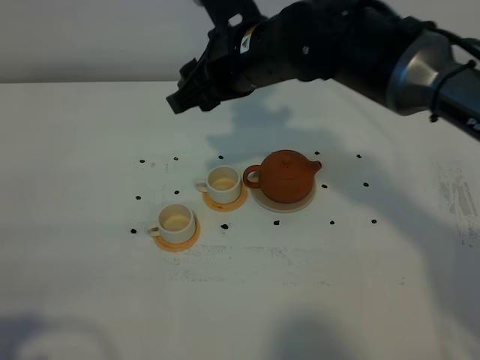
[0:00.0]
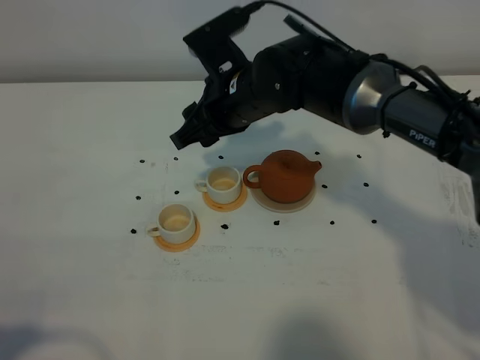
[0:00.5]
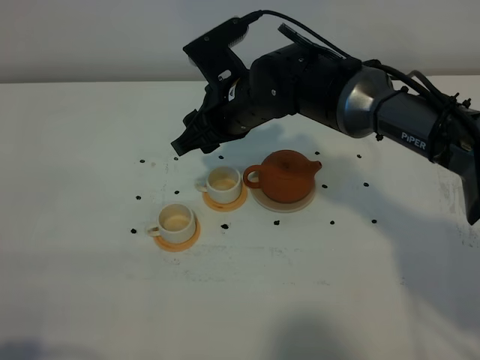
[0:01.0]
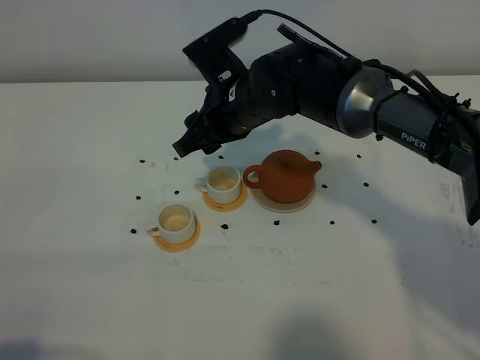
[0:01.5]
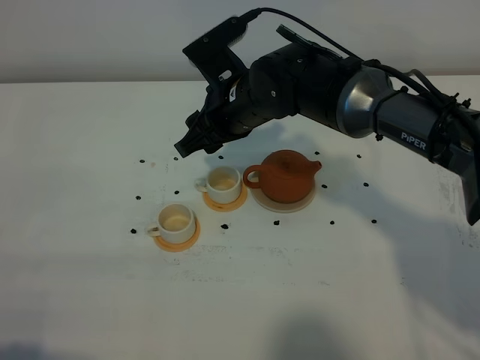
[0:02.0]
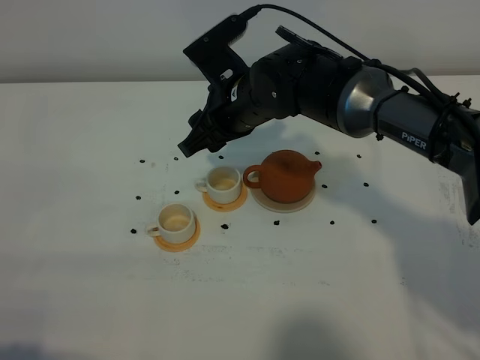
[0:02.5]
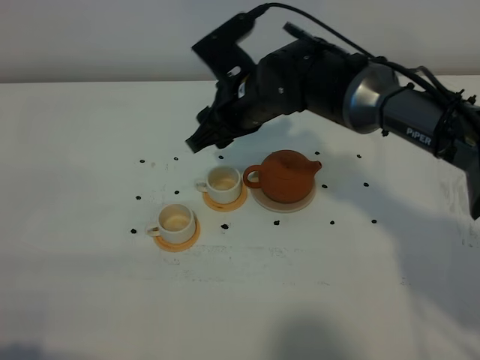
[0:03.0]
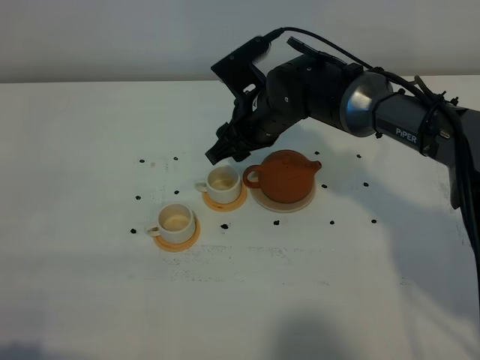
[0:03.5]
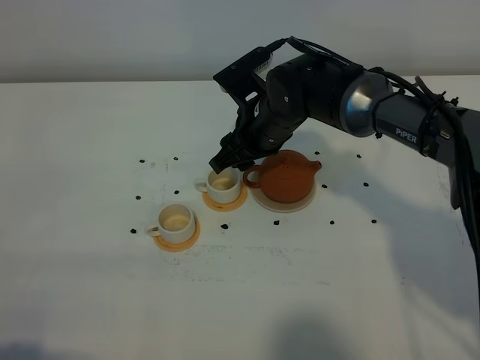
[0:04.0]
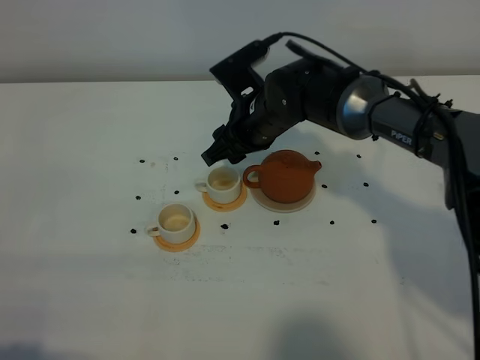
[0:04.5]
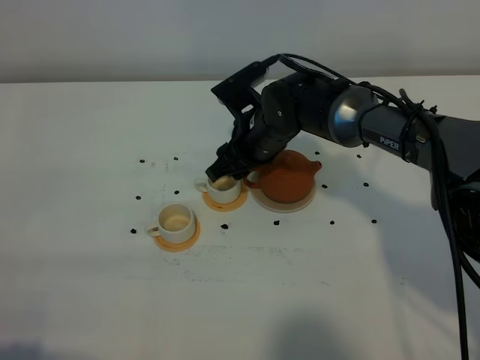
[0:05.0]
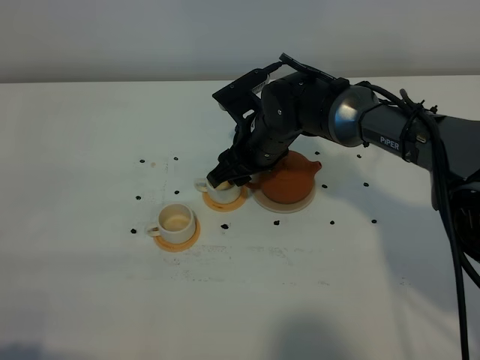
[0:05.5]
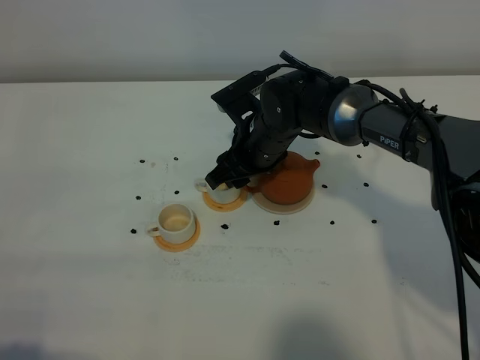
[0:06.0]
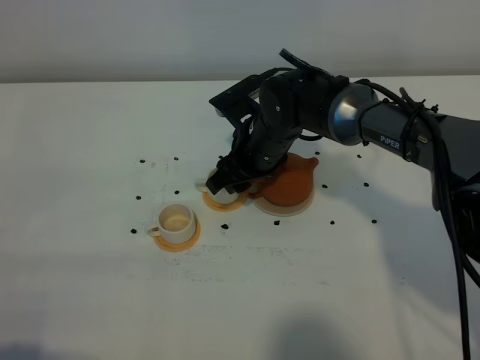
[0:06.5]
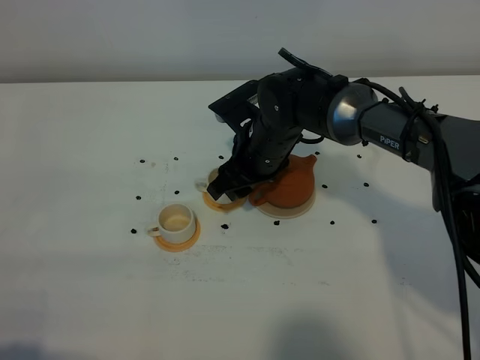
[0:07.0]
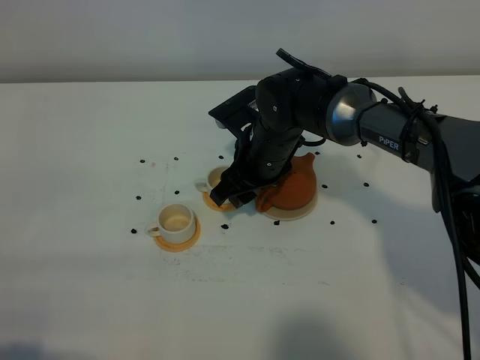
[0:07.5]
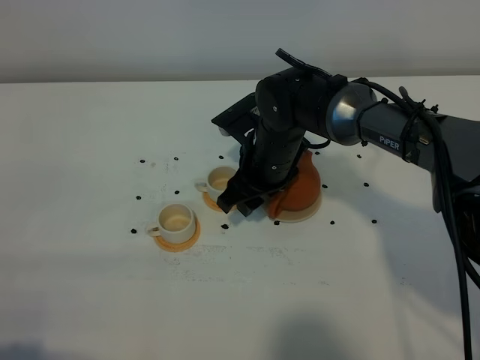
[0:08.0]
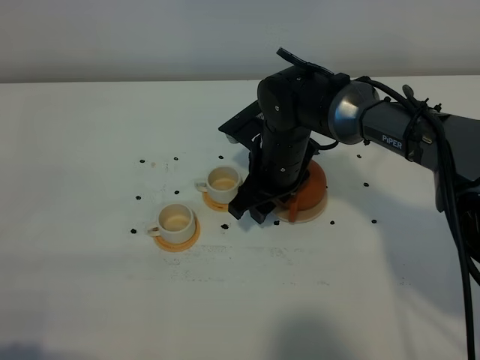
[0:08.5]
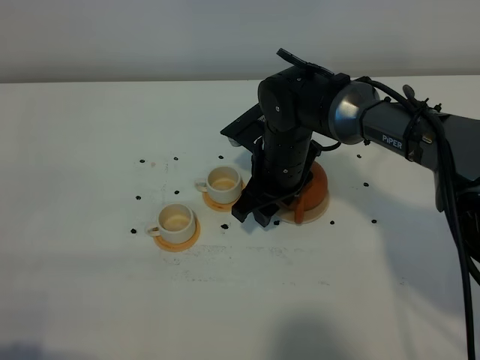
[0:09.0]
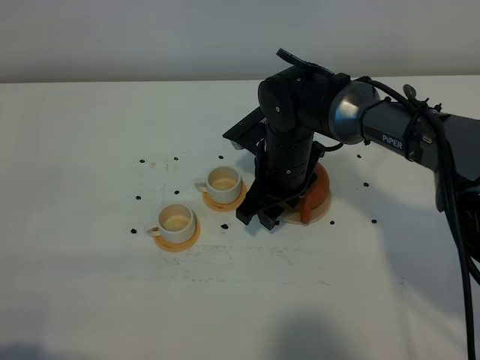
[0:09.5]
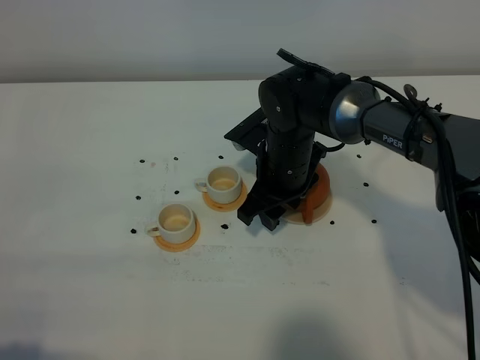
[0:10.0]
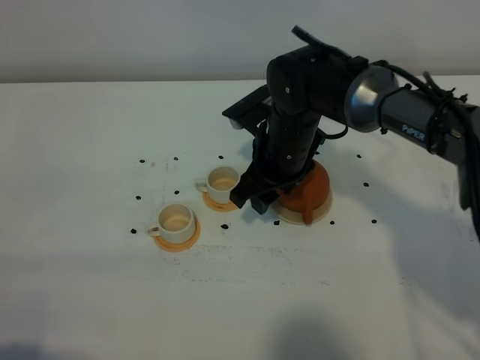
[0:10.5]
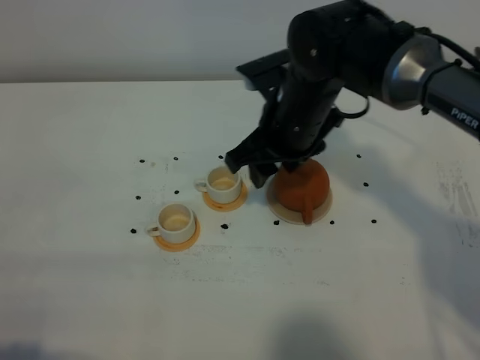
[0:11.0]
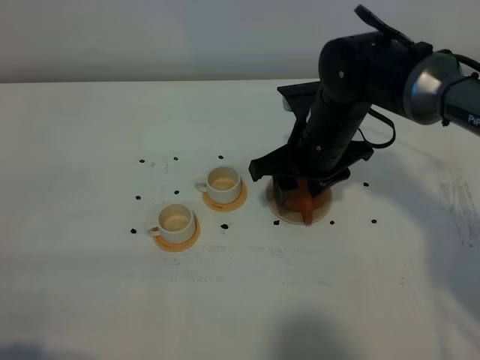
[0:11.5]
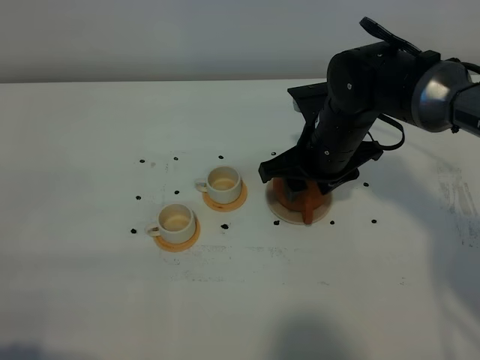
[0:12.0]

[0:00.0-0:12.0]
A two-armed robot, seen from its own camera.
Task of the whole recording: grasp the brown teapot and pour the tea into the two white teacups one by one, put the brown teapot back in its original place.
0.0 to 2.0 s: The right gripper travels downward by some 5 cm.
2.0 to 4.0 s: The right gripper shifts by roughly 5 cm.
4.0 to 8.0 s: The grippers stay close to where they were, moving slightly.
8.0 to 10.0 s: The grippers move only a little.
10.0 to 12.0 s: The right gripper goes approximately 5 cm to the right.

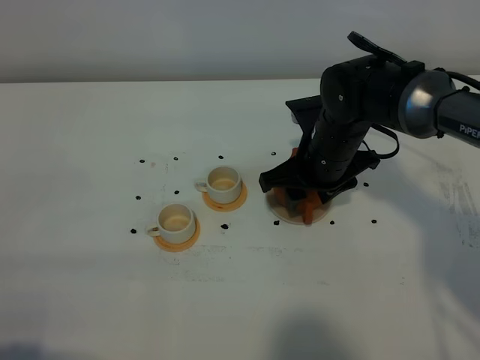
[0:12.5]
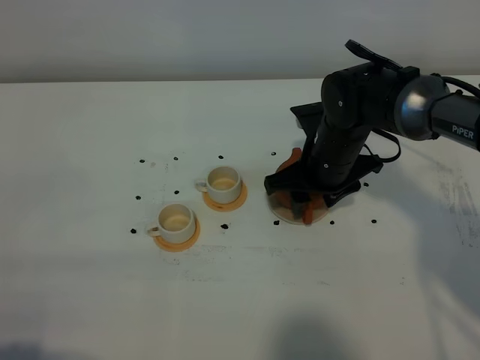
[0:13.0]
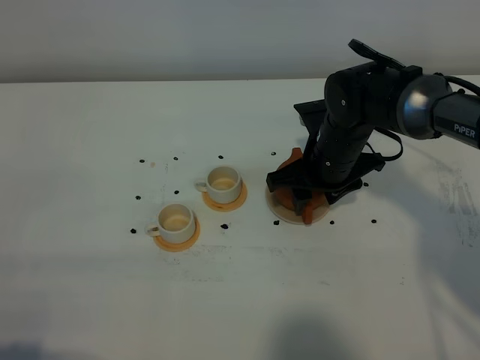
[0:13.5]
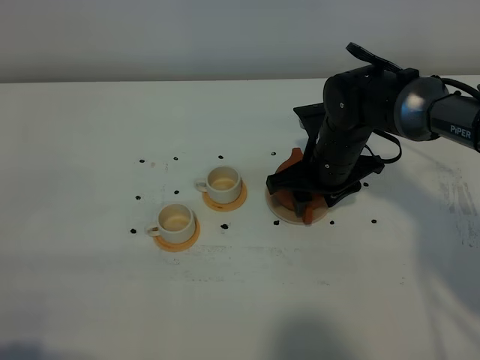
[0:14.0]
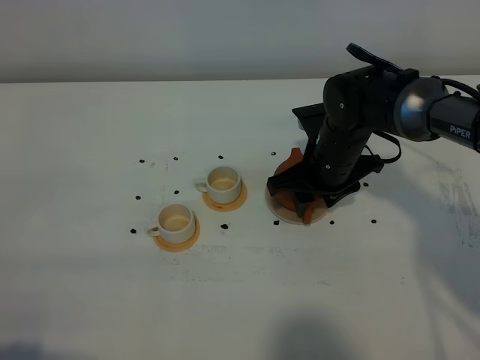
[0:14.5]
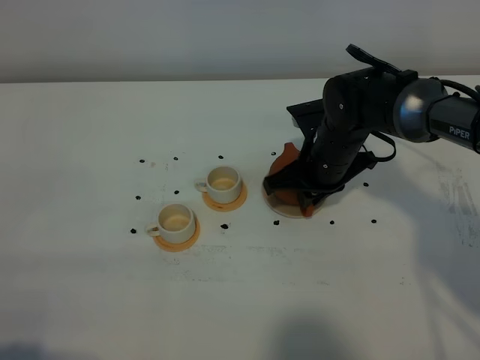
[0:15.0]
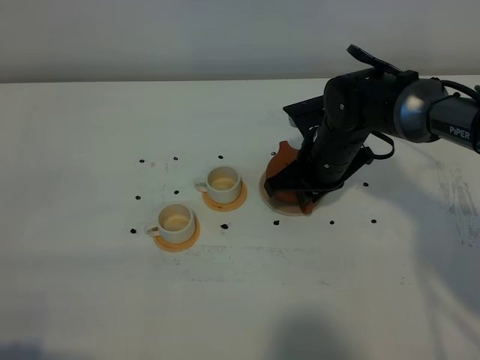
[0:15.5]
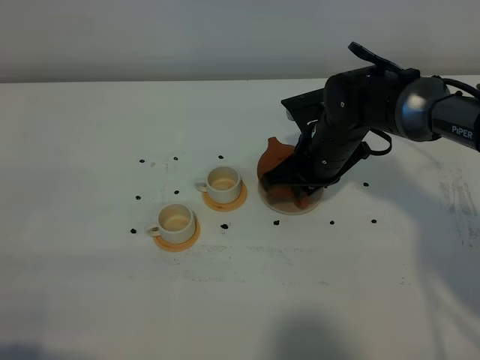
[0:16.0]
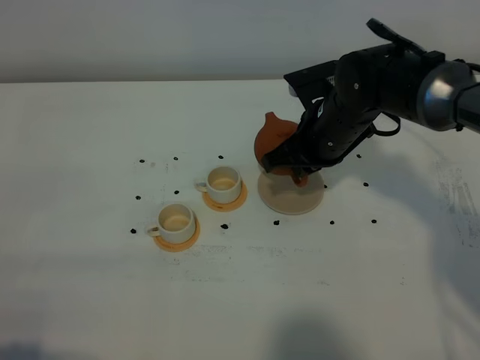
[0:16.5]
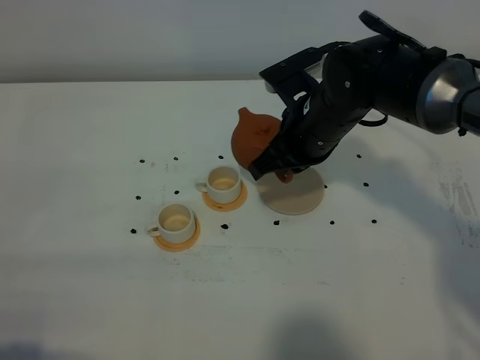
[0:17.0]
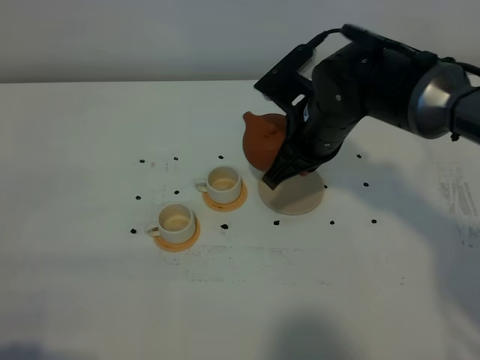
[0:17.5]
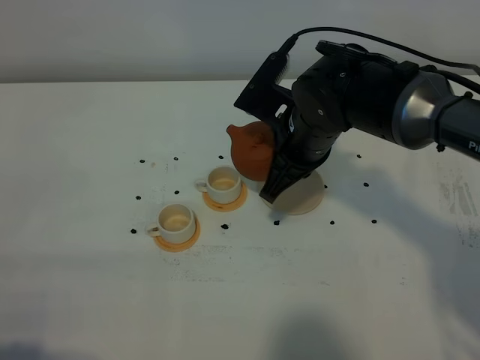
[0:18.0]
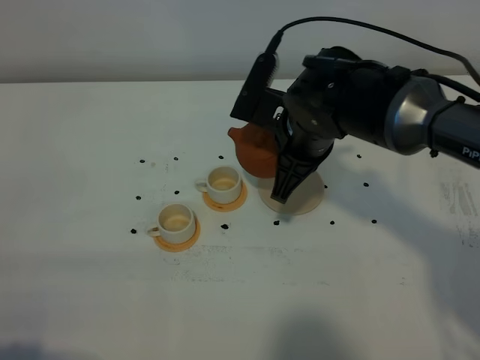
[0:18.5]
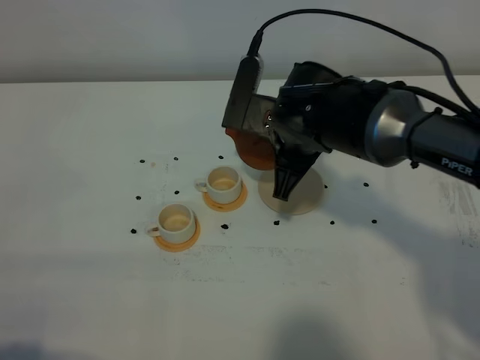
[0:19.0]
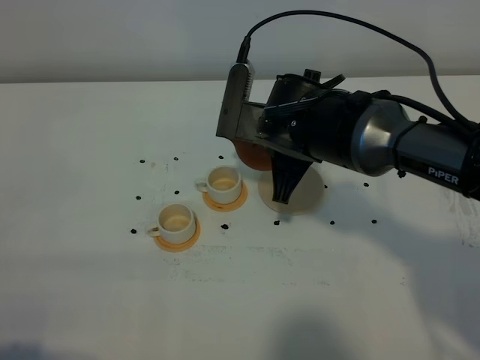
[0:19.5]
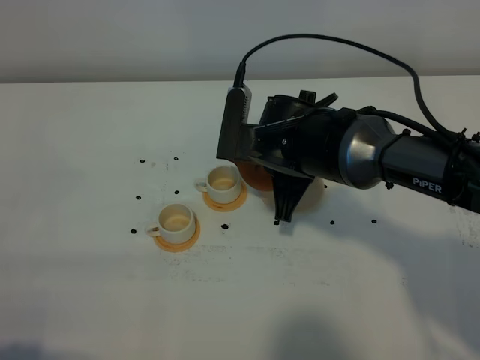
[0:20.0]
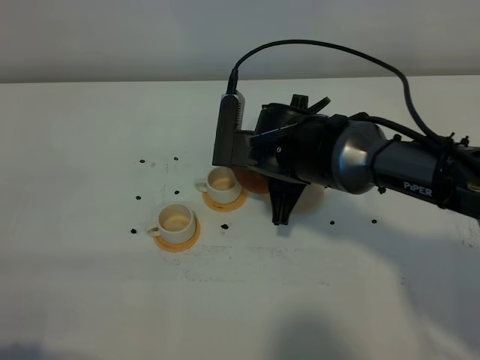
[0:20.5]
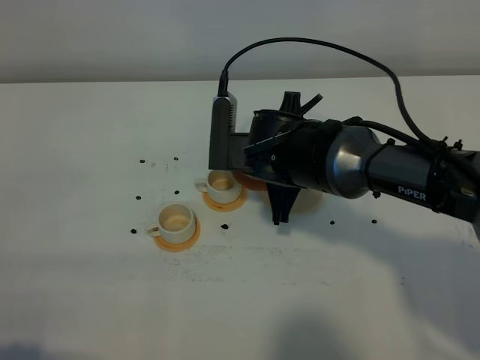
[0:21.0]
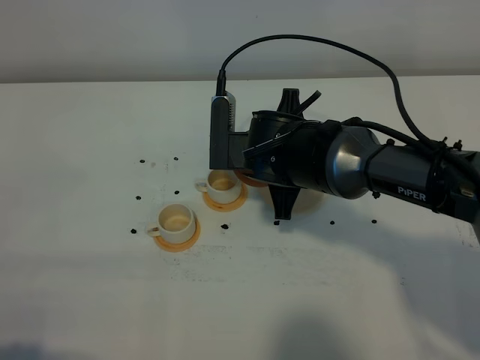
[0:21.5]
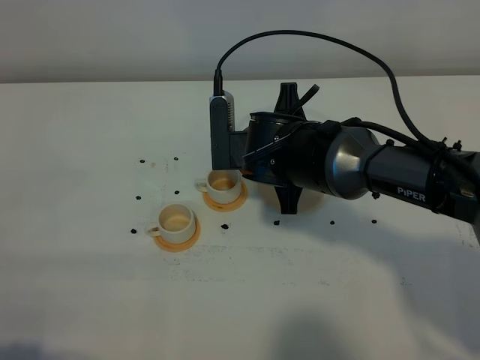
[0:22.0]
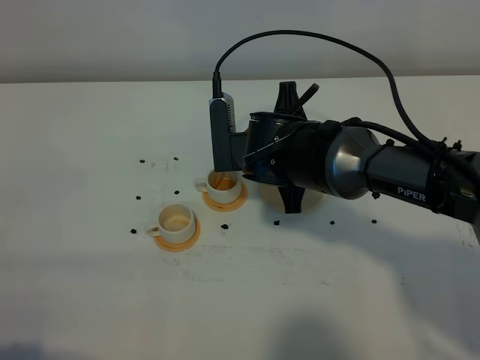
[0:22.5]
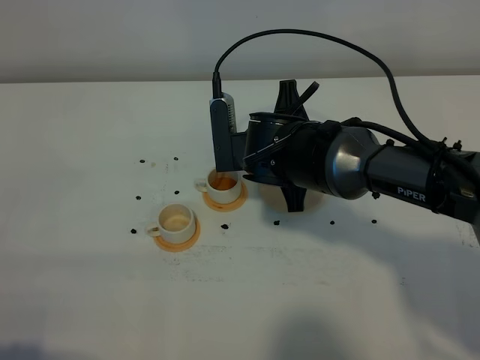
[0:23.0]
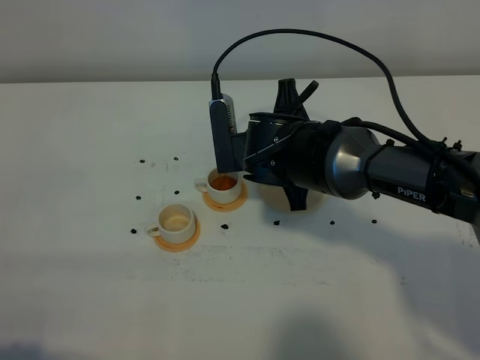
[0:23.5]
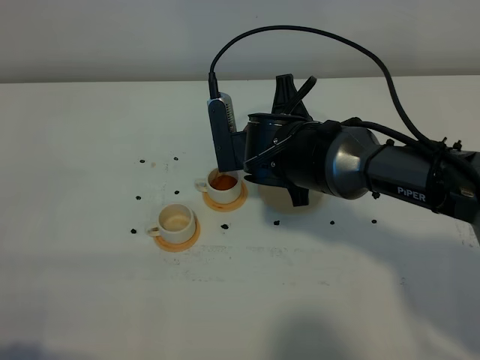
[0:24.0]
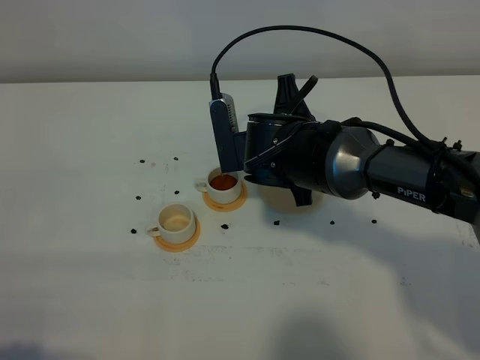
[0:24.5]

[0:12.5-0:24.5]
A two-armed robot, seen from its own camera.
Task of the whole recording: grasp the brown teapot and pour the tea into the two white teacups one by one, put the brown teapot back in its original place.
Step, 12.5 to 16.0 s: Pick up the teapot with the right gripper.
12.5 to 14.5 s: The grippers move only a little.
14.5 to 16.5 s: The right gripper closes up.
16.5 to 18.5 s: The right gripper changes place by approximately 5 cm.
18.5 to 20.5 s: The grippers move only a little.
20.5 to 22.5 s: The grippers move only a little.
22.5 to 24.5 s: There are only small adjustments of the grippers.

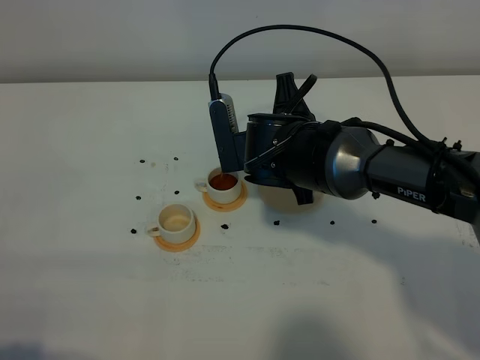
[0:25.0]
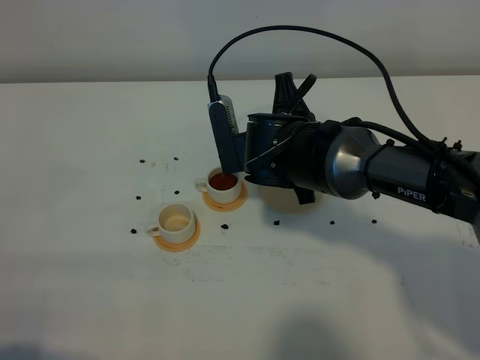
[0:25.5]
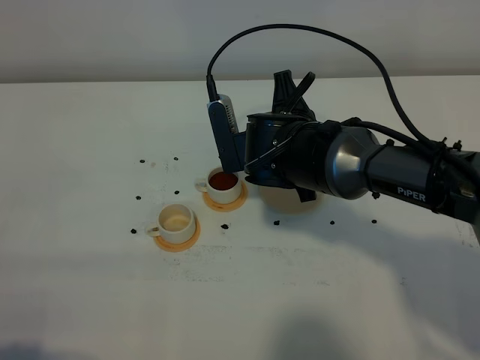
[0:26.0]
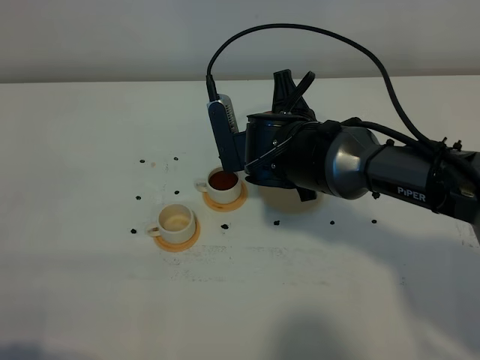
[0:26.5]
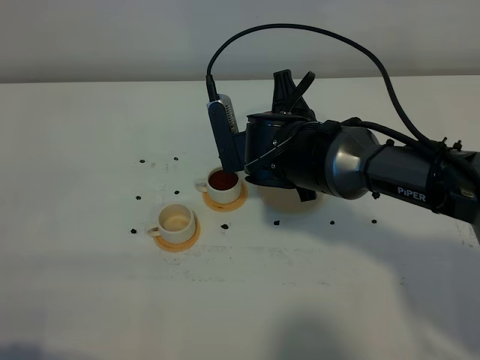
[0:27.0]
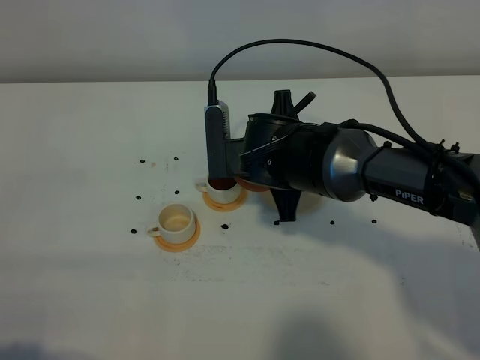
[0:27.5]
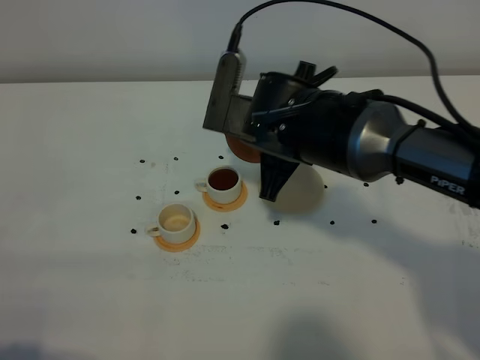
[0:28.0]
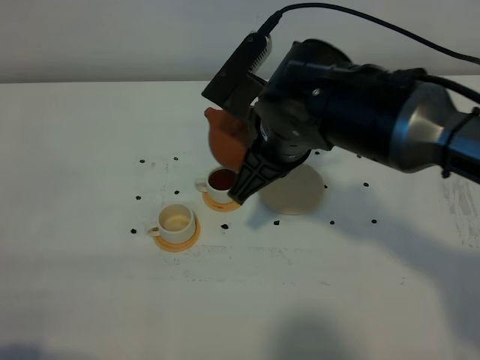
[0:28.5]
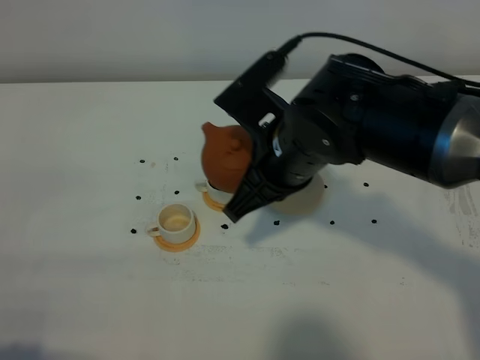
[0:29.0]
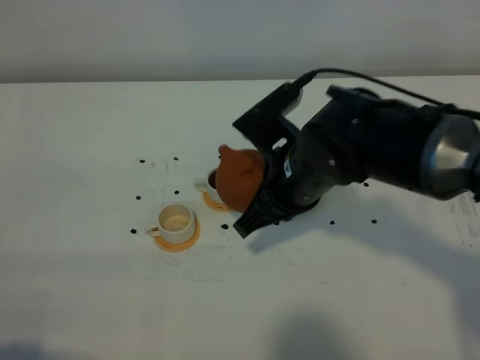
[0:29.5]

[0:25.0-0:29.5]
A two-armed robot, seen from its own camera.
Task of the whole recording: grasp the brown teapot and pour the tea into the two white teacups one by one, put the brown teapot back in its original place.
25.0 to 27.0 s: The two grippers keep their place.
27.0 to 29.5 s: The right gripper is displaced backward by approximately 5 cm, and goes upward and returns, some 5 cm each way.
